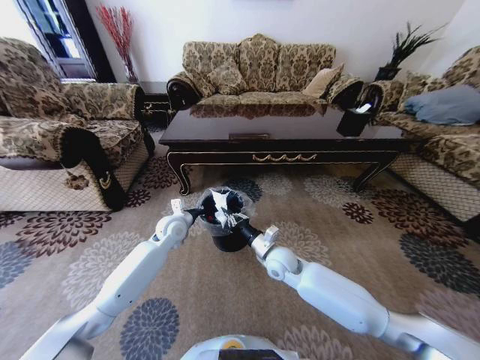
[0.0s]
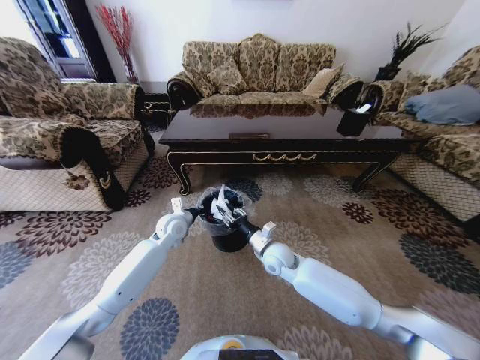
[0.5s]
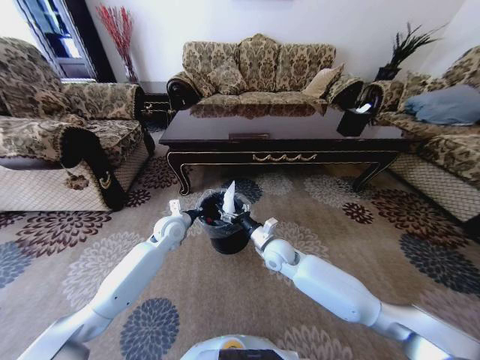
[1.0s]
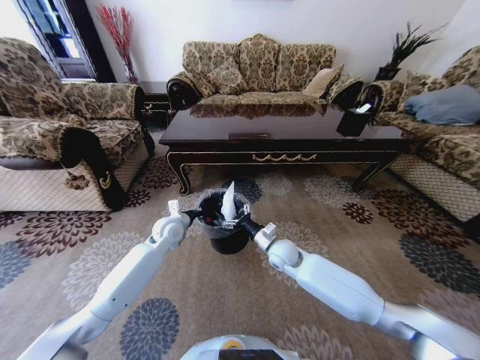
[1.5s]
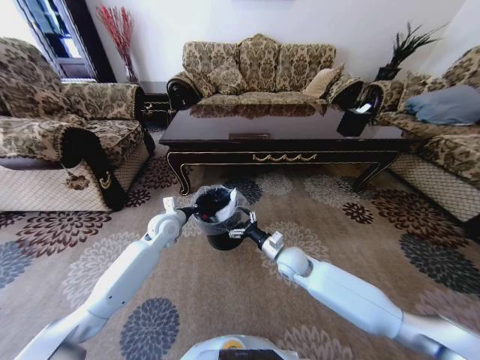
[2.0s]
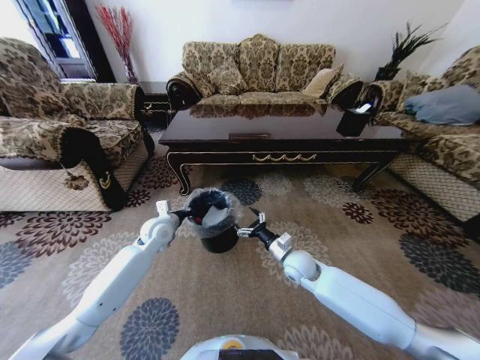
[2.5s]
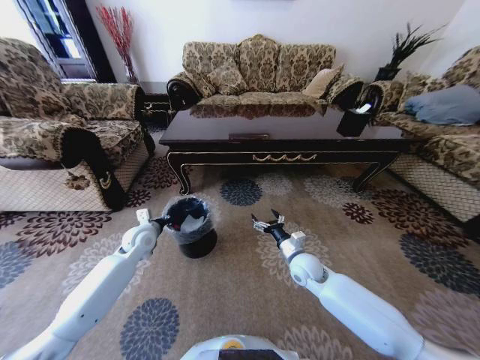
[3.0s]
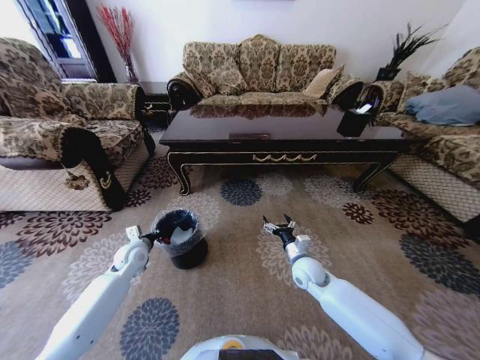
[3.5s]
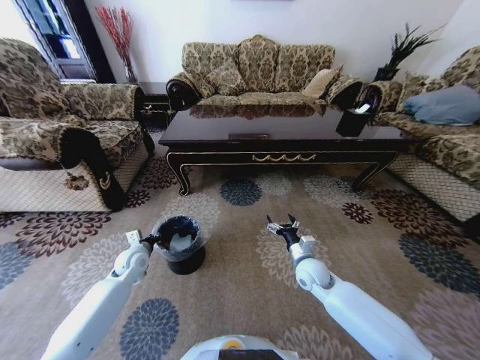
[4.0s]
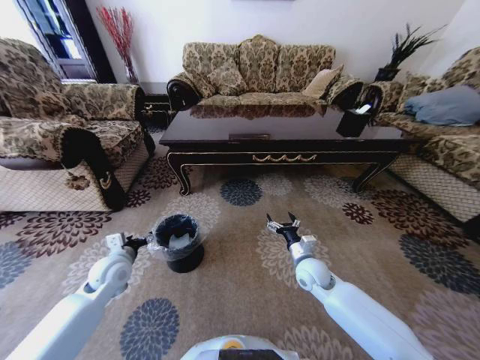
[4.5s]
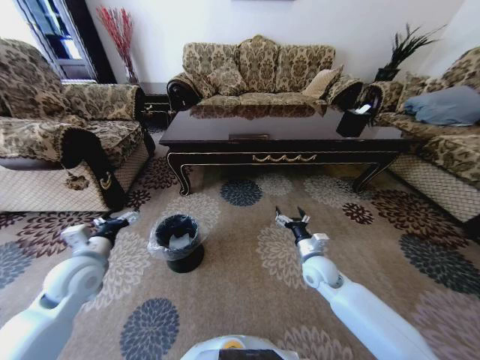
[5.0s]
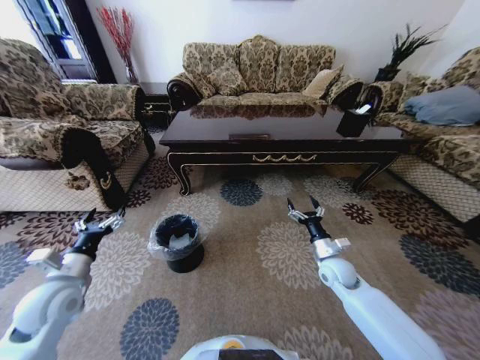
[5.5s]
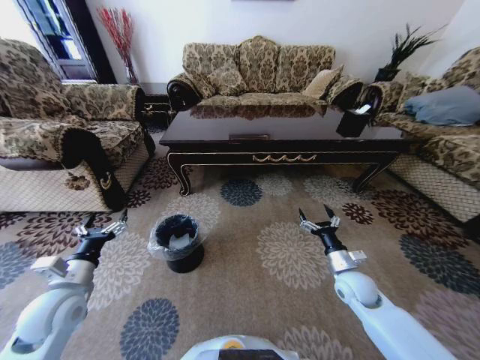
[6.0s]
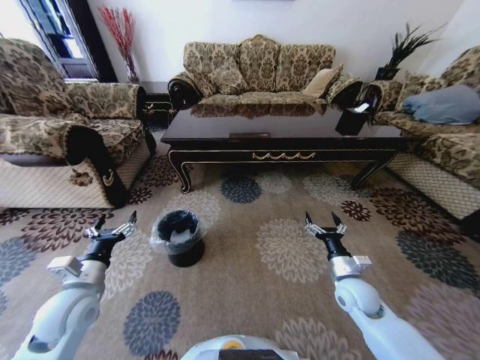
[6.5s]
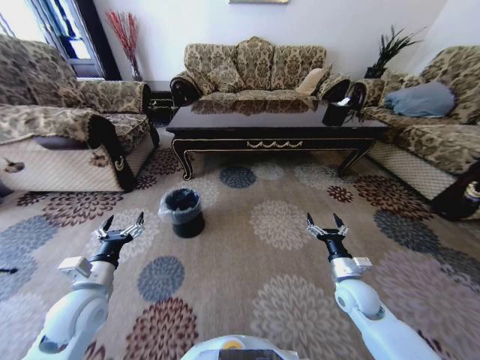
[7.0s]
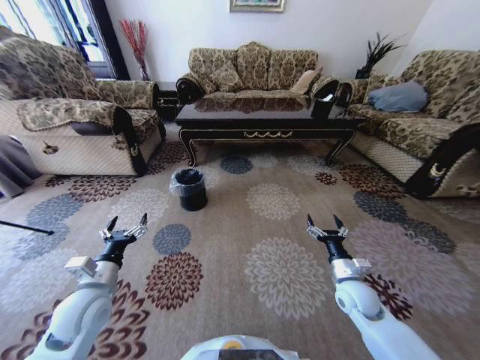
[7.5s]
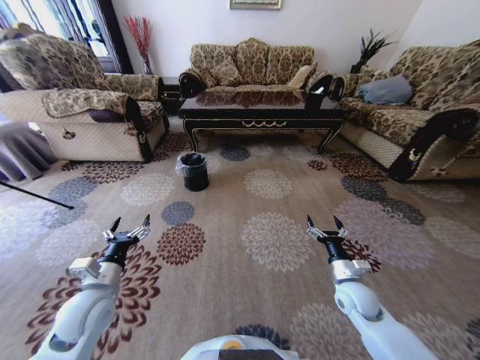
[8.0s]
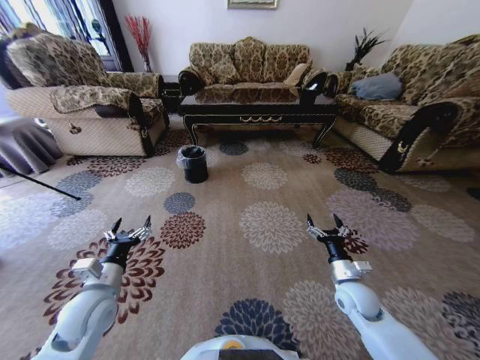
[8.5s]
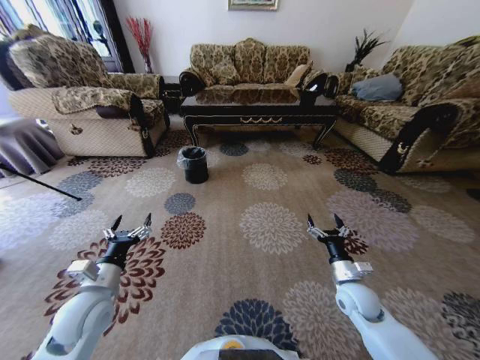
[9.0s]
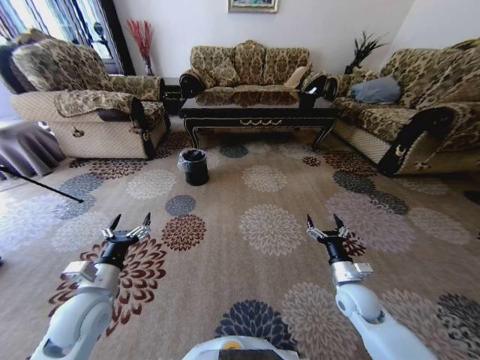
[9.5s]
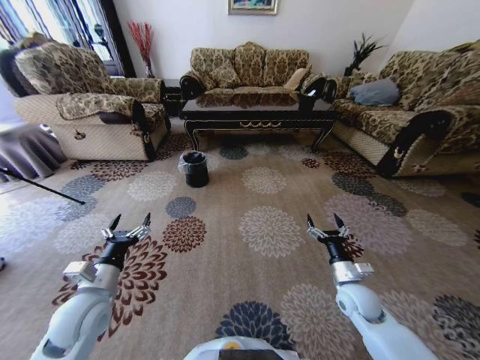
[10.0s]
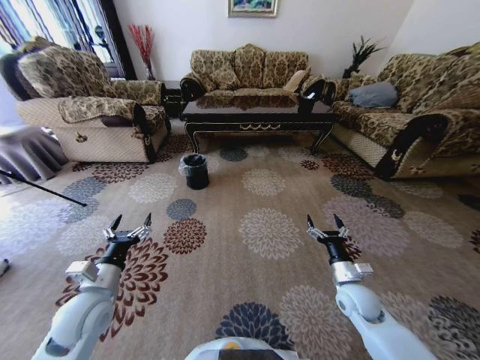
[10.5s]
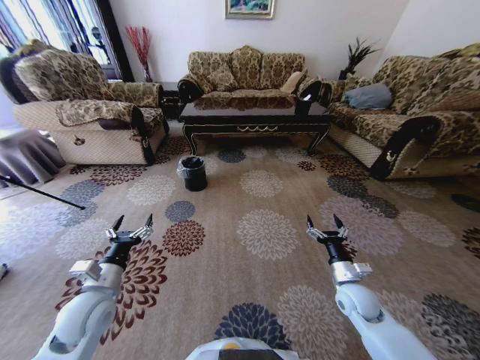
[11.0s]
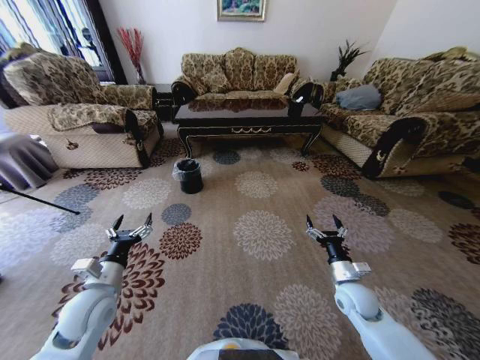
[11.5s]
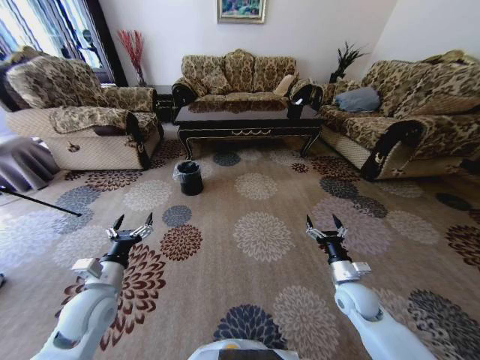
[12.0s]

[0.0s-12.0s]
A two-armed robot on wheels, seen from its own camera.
Task of the whole recording: Move to the front of the table and pick up the trash from the floor, then place it into the trash bin.
0.0s to 2.0s: The right gripper opens up.
2.0s to 4.0s: The left gripper travels to the left, downward and backward by about 15 cm. Meanwhile the right gripper shifts approximately 5 cm to the right.
4.0s to 6.0s: The right gripper shifts approximately 10 cm to the right. Meanwhile the left gripper heads backward and upward, covering approximately 20 cm, and opens.
6.0s to 8.0s: The left gripper heads to the right, covering about 5 cm.

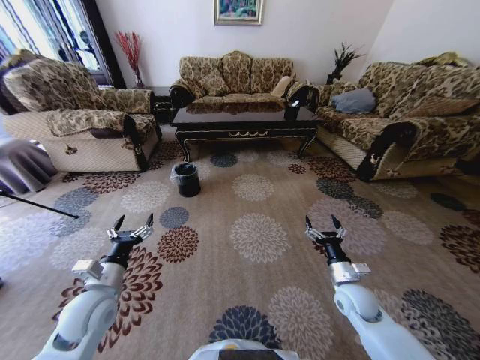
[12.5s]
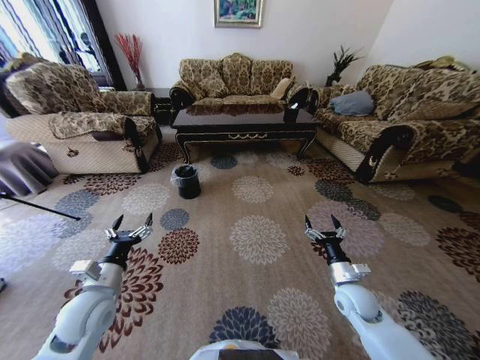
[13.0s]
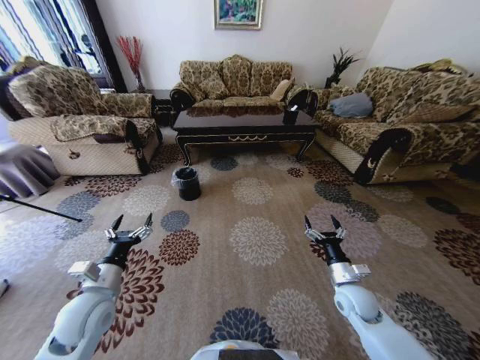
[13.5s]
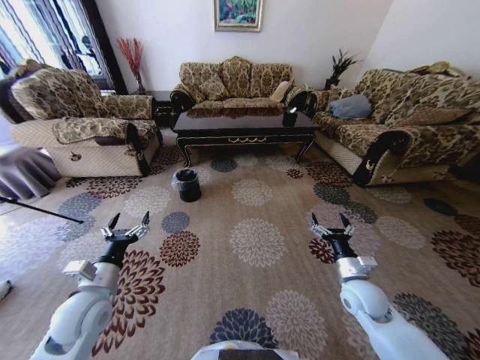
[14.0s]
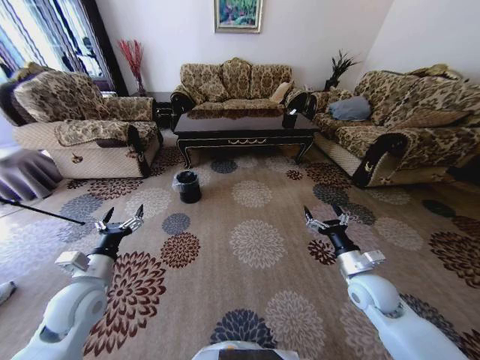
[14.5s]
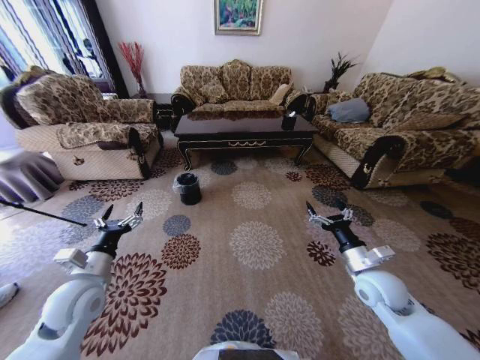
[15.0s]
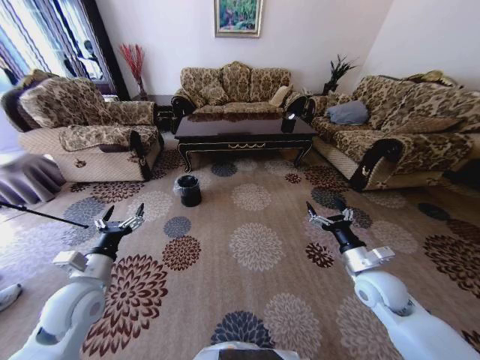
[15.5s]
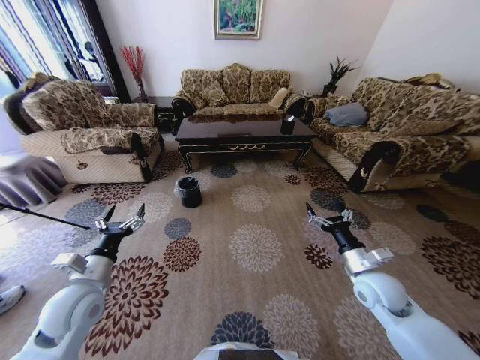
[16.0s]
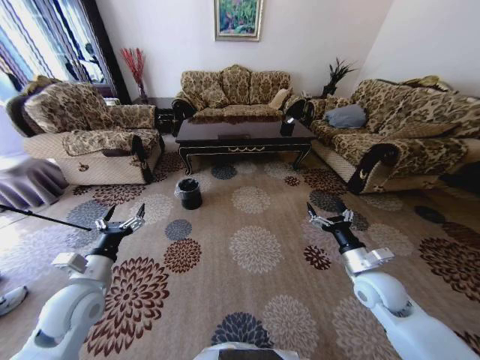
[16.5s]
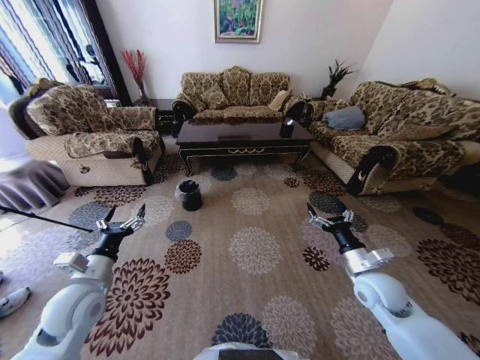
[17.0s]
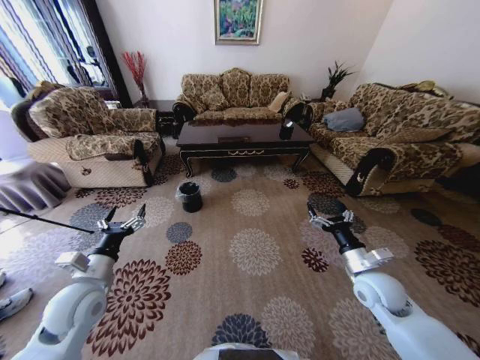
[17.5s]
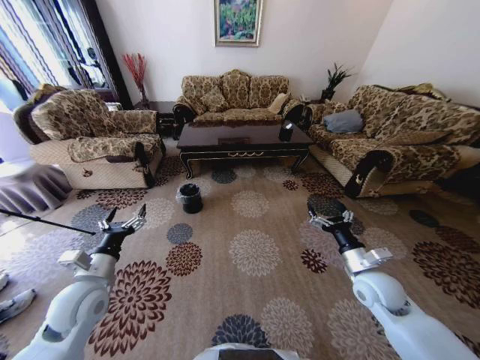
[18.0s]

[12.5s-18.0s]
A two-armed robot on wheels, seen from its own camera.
Task of the whole recording: Move to the front of the table and pick up the trash from the floor, then place it into the trash bin.
12.5s to 14.5s: The right gripper shifts roughly 5 cm upward.

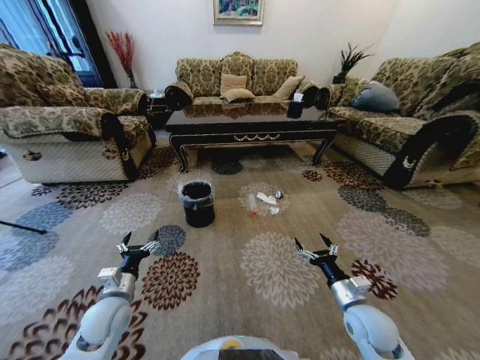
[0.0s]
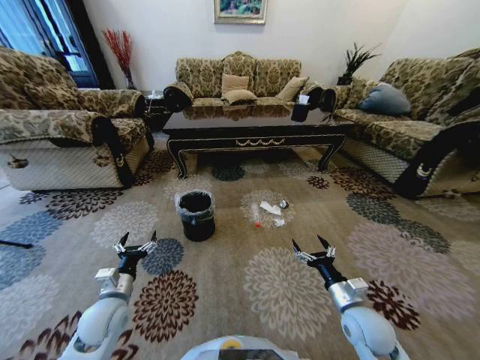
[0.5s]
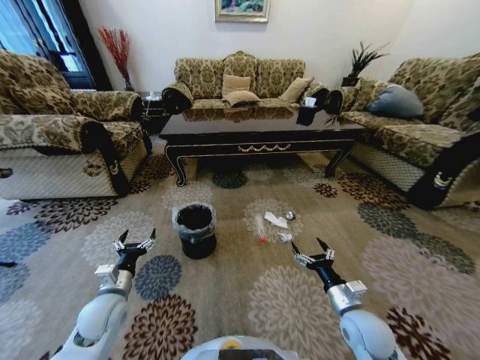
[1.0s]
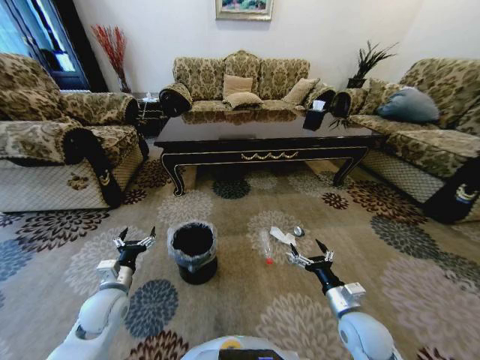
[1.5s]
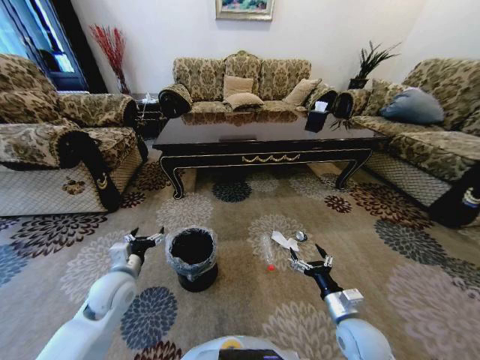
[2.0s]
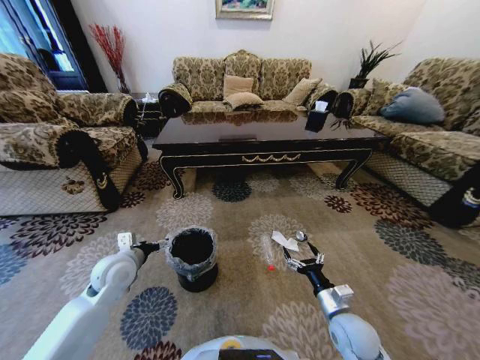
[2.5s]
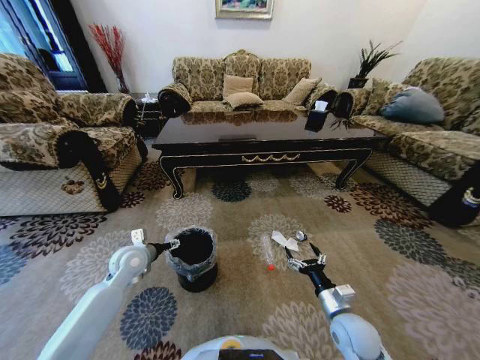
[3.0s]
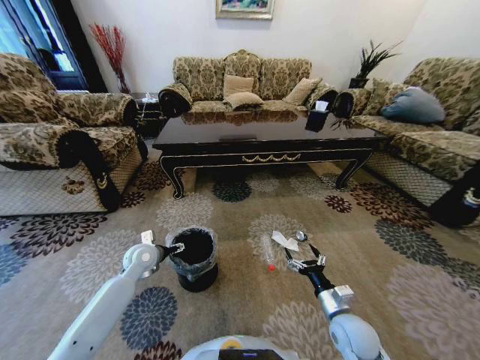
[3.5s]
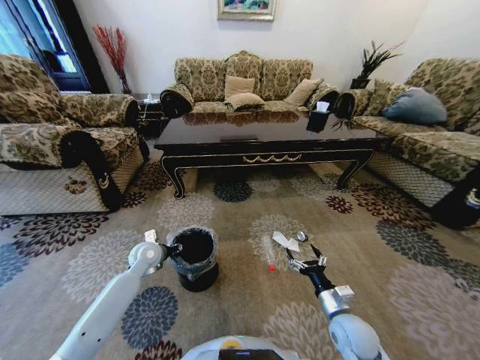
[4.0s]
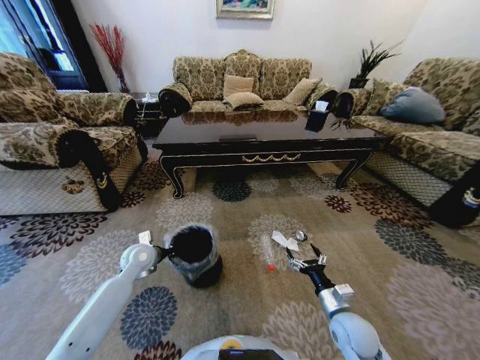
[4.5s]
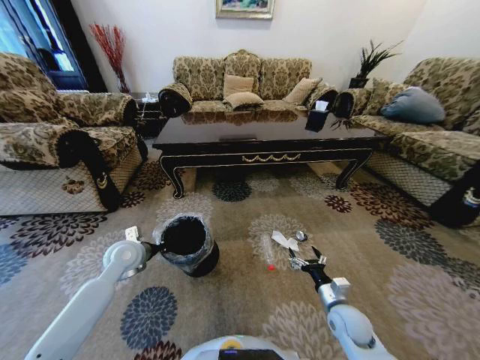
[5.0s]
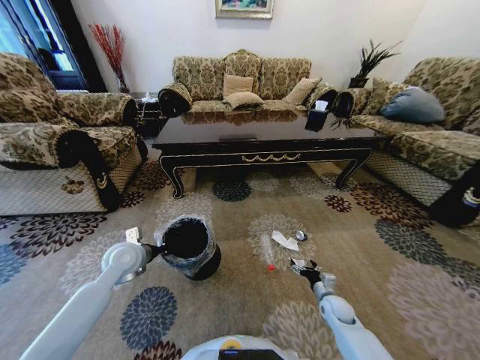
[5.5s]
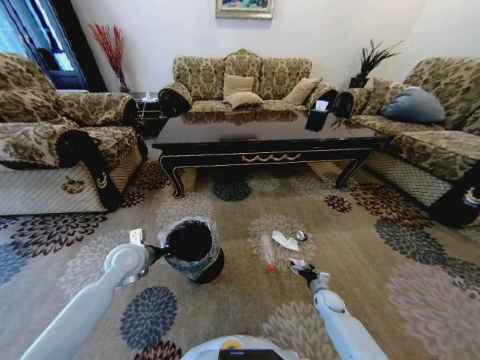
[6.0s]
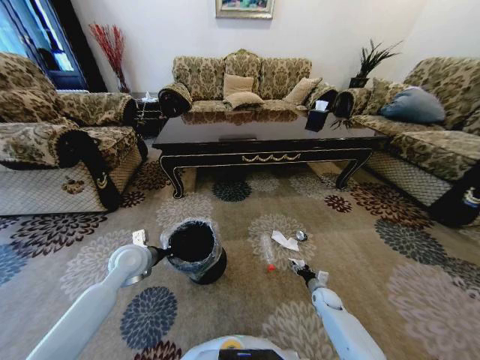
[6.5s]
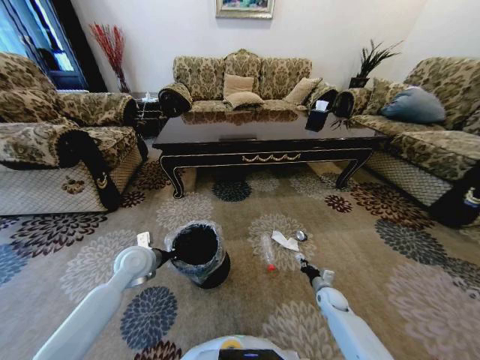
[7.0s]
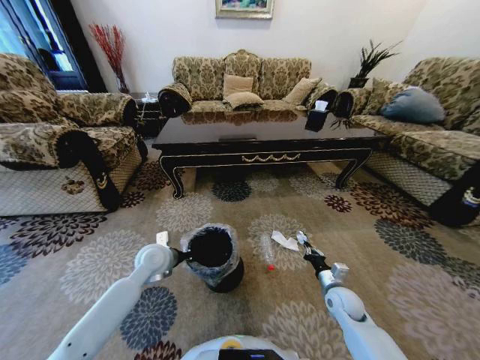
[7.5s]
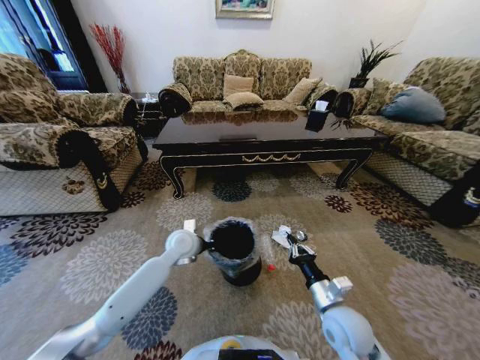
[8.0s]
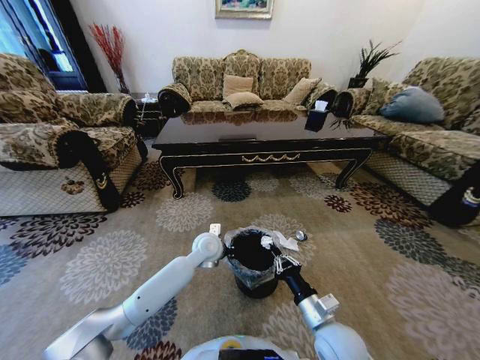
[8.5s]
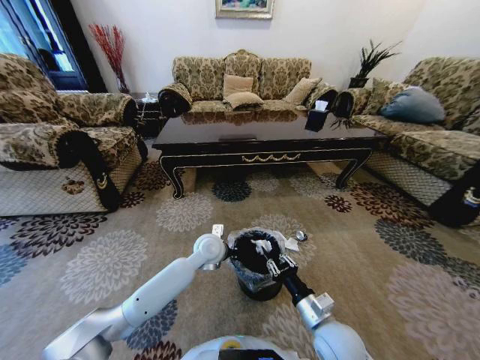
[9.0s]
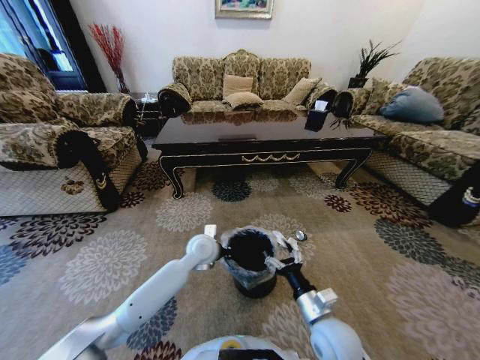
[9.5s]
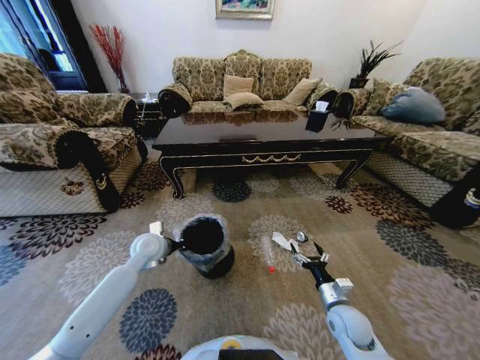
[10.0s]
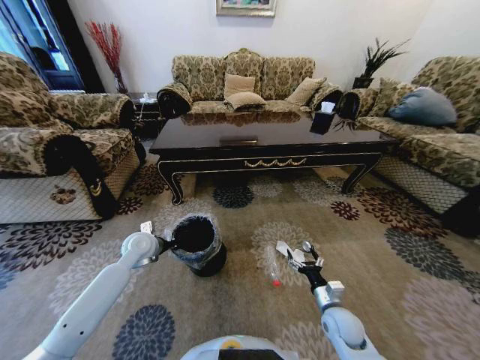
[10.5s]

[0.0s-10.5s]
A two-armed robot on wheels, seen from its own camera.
Task of the whole recording: Move to the front of the table and pick up the trash from the floor, then place it into the trash bin.
0.0s to 2.0s: The left gripper shifts by roughly 5 cm.
2.0s to 4.0s: The left gripper moves forward, approximately 10 cm, and closes.
4.0s to 6.5s: The right gripper travels downward, forward and to the right by roughly 25 cm. Meanwhile the left gripper shifts about 5 cm upward, and closes up.
6.5s to 8.5s: The right gripper goes approximately 35 cm upward, backward and to the left, and closes up, while the left gripper travels to the right by about 20 cm.
8.5s to 10.5s: The right gripper is displaced downward, to the right and forward by roughly 15 cm, and opens its fingers. Meanwhile the left gripper goes roughly 20 cm to the left.
